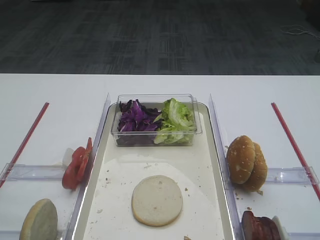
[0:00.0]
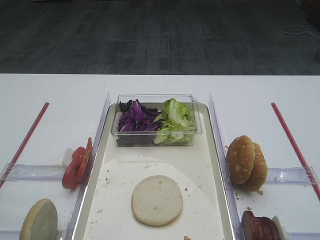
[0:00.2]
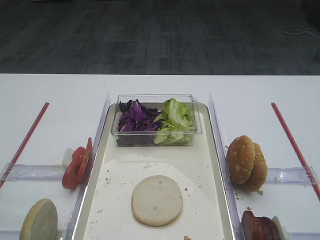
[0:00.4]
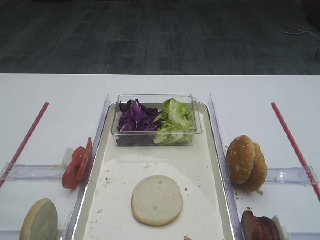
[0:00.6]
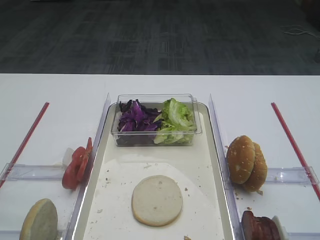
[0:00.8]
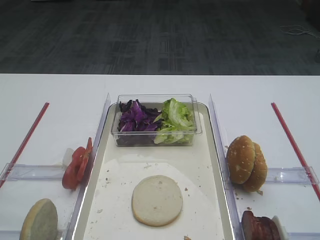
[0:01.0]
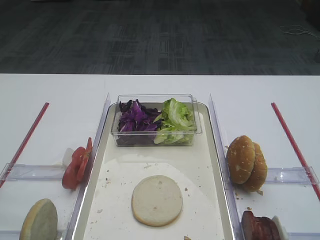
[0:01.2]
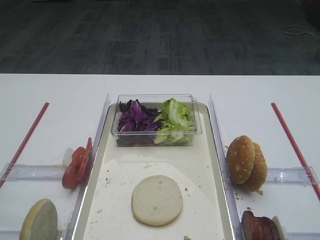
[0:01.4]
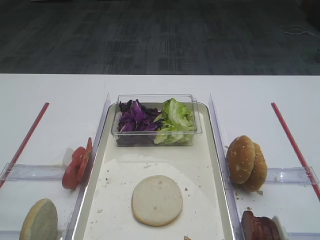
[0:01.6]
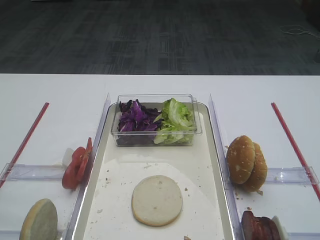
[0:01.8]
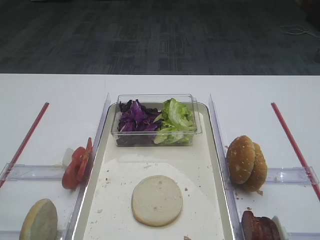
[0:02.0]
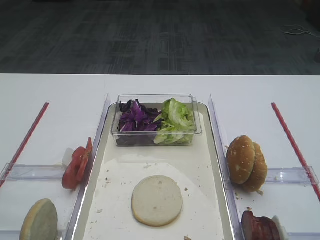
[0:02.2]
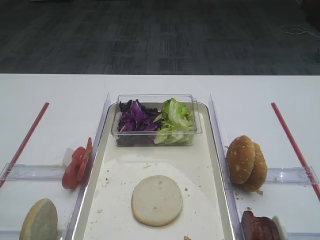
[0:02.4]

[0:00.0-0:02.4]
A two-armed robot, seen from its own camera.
0:01.2 to 0:02.4: Both grippers stay about where they are.
